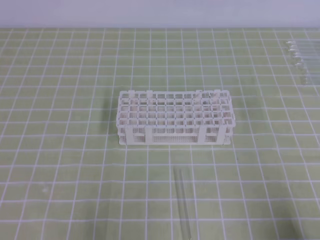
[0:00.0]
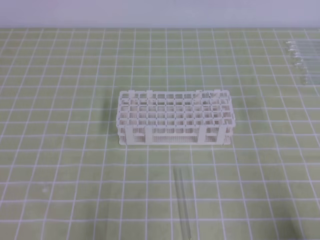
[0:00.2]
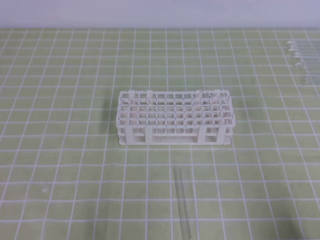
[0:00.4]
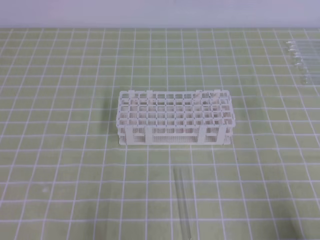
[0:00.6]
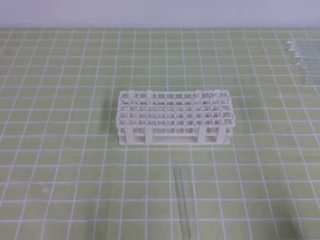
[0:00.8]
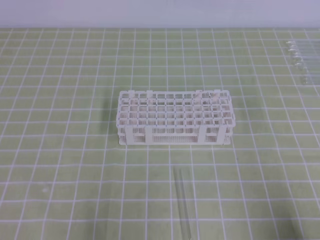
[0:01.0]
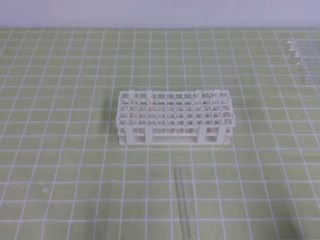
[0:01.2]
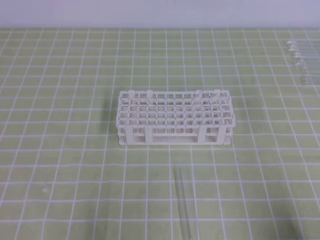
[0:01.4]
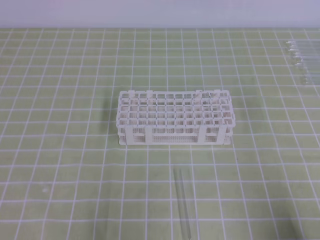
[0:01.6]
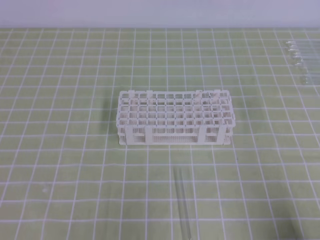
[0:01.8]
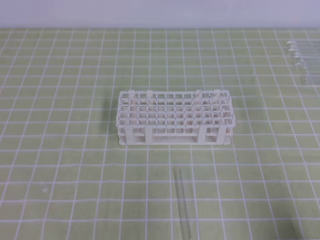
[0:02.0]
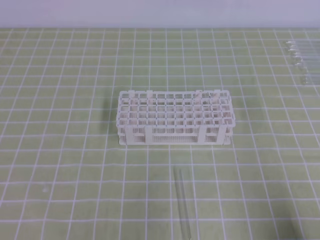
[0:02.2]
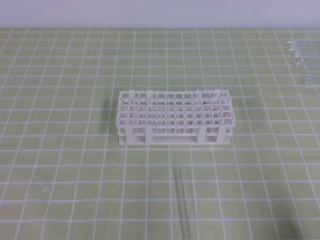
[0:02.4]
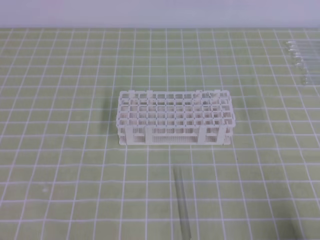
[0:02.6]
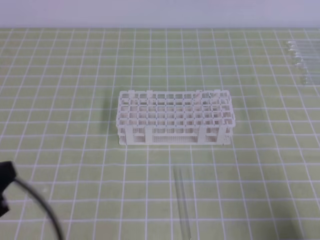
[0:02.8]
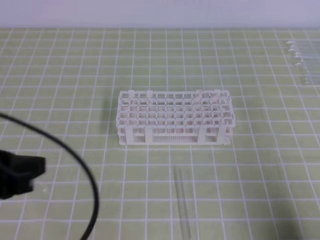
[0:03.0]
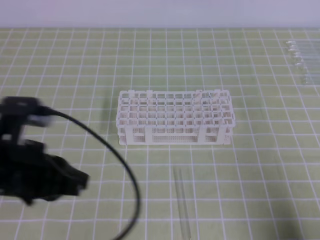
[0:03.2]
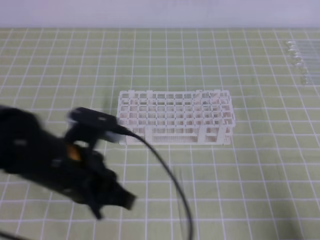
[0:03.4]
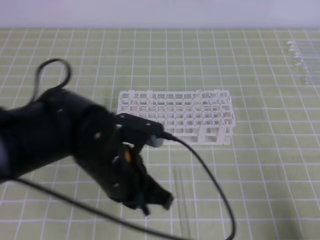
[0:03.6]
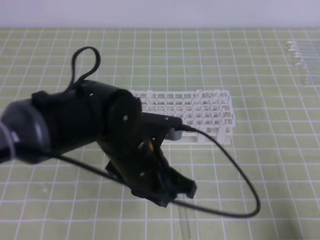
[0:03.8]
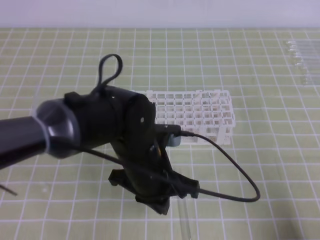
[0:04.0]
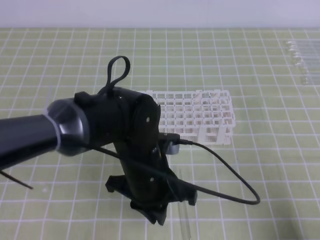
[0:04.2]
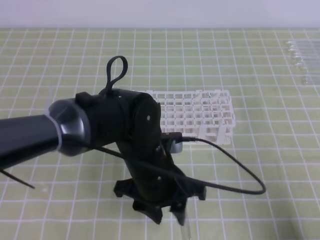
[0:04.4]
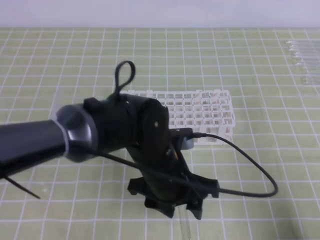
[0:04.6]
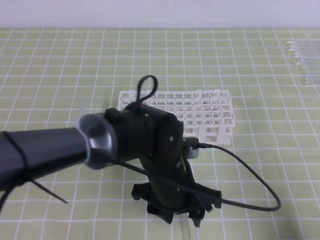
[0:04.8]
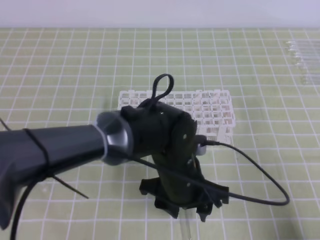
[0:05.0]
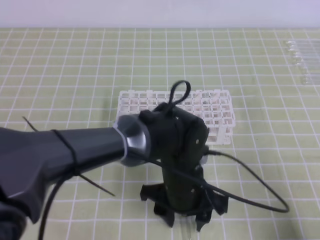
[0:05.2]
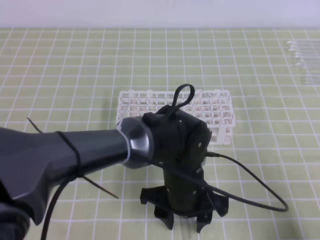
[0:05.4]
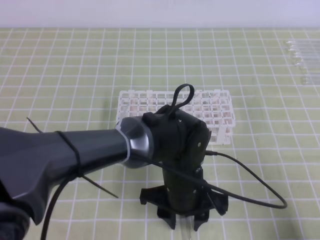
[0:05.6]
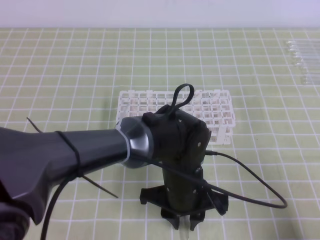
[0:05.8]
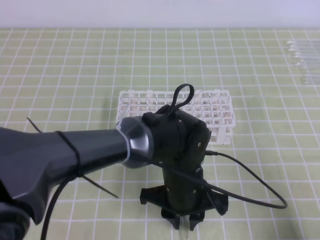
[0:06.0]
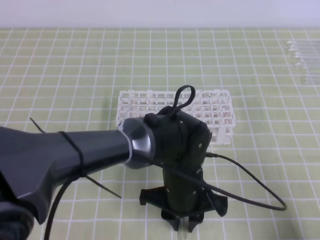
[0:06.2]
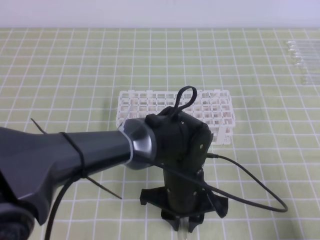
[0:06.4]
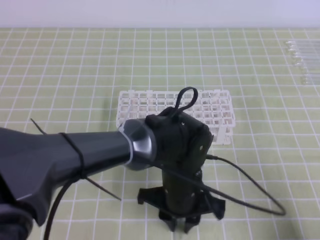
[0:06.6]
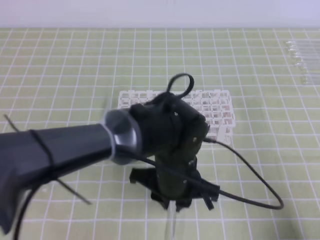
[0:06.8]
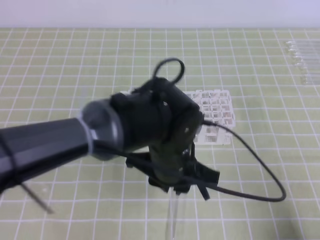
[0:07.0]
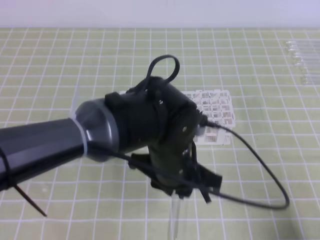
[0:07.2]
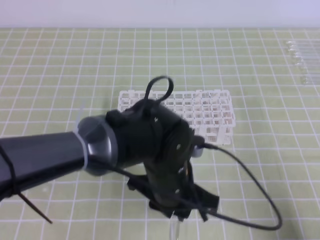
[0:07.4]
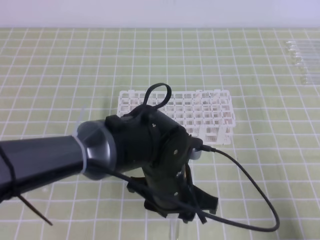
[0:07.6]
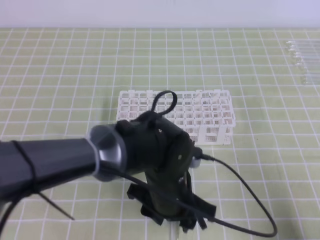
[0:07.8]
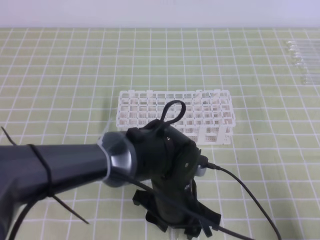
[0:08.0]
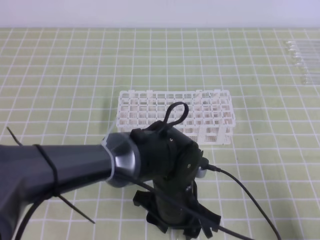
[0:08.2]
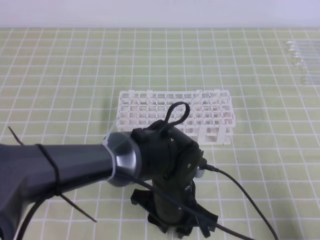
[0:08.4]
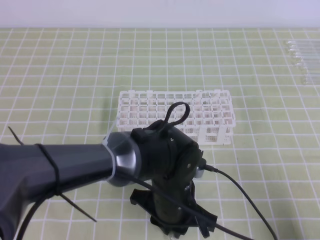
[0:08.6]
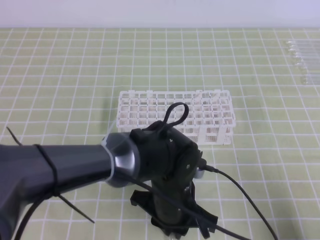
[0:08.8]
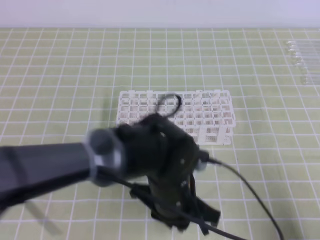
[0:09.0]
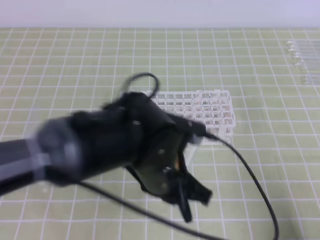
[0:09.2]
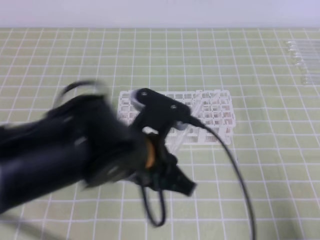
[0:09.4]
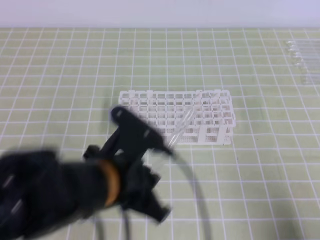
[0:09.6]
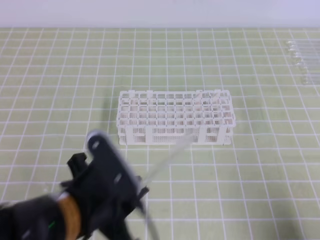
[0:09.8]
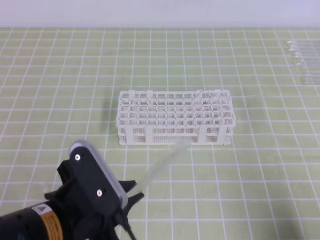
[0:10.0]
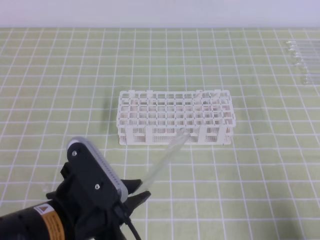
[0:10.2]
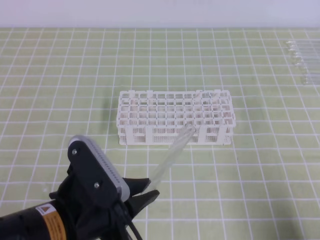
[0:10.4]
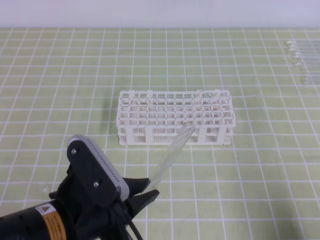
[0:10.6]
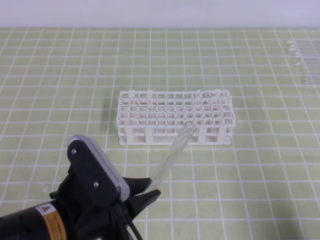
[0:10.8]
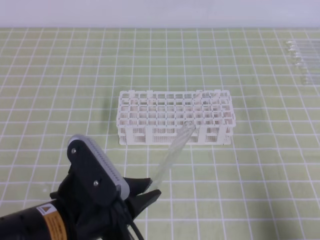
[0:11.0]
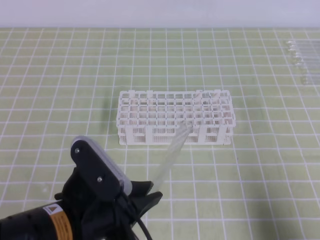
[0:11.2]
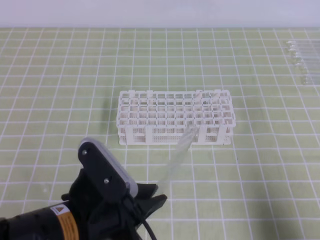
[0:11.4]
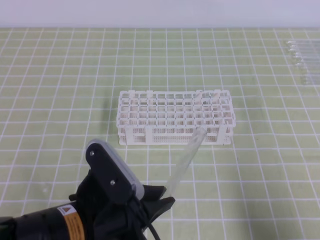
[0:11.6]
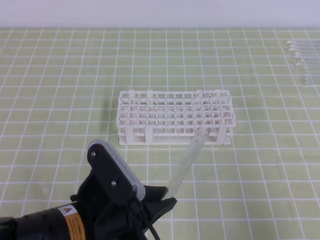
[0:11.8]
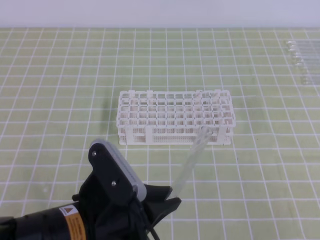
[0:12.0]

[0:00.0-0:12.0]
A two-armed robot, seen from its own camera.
0:01.6 to 0:03.0: The left gripper is displaced upward and forward by some 15 cm.
0:03.0 to 0:04.4: The left gripper goes approximately 25 cm to the right, forward and downward, and opens.
0:04.4 to 0:06.0: The left gripper moves to the right, roughly 5 cm, and opens and closes again.
0:06.0 to 0:07.6: The grippers move only a little.
0:07.6 to 0:09.0: The left gripper closes its fingers.
0:09.0 to 0:10.4: The left gripper moves to the left, backward and upward, some 15 cm.
0:10.4 to 0:12.0: The right gripper heads upward, covering approximately 5 cm.

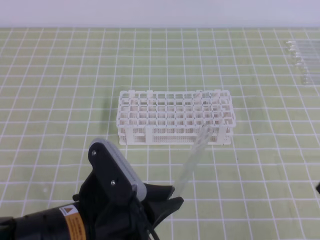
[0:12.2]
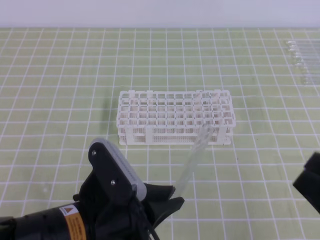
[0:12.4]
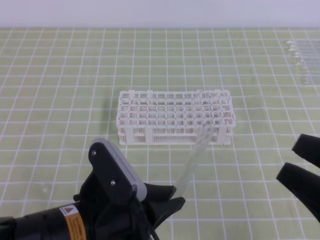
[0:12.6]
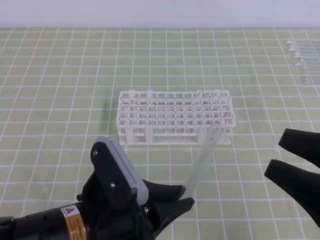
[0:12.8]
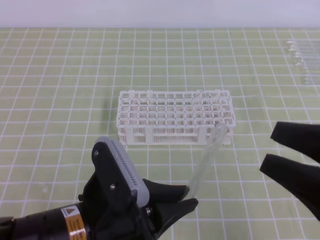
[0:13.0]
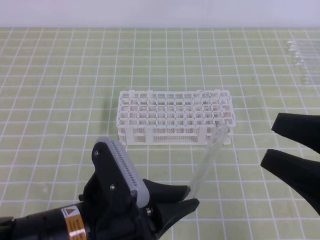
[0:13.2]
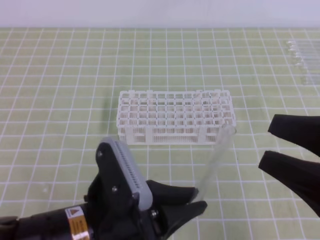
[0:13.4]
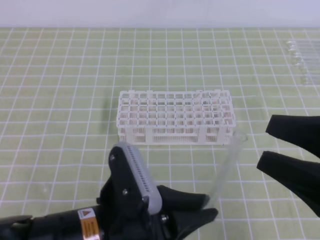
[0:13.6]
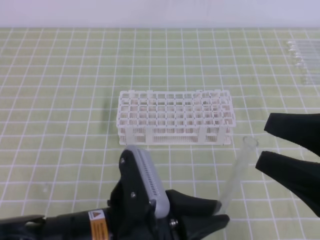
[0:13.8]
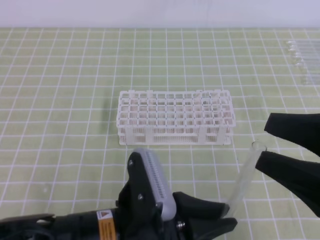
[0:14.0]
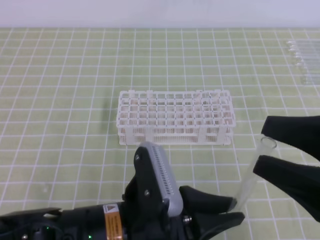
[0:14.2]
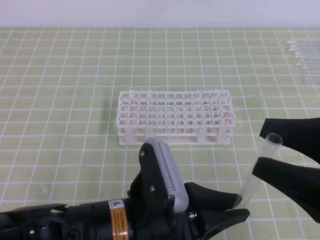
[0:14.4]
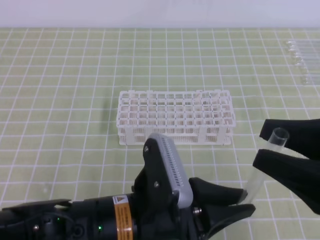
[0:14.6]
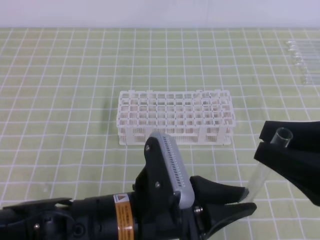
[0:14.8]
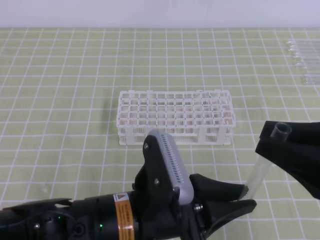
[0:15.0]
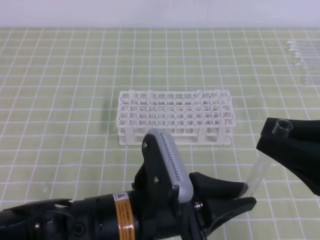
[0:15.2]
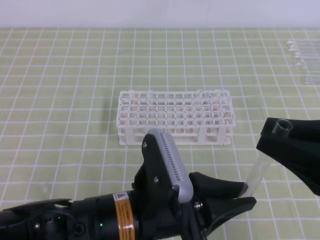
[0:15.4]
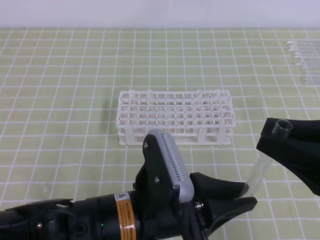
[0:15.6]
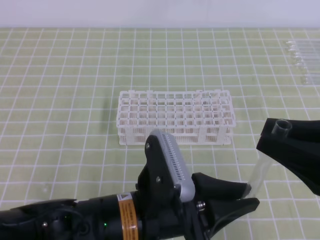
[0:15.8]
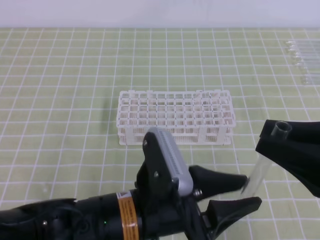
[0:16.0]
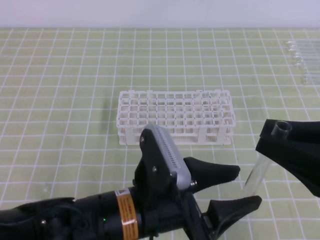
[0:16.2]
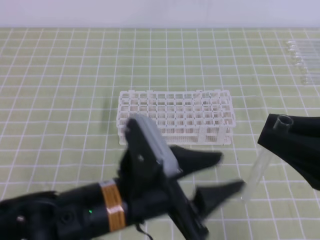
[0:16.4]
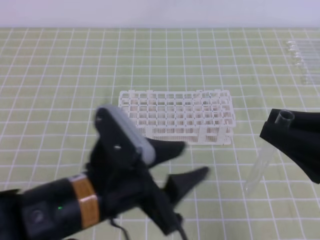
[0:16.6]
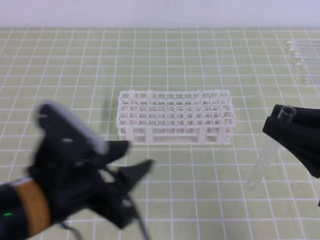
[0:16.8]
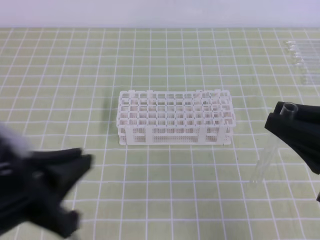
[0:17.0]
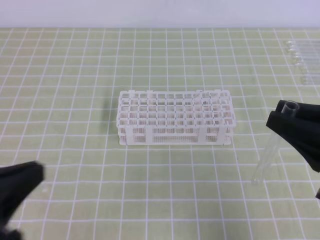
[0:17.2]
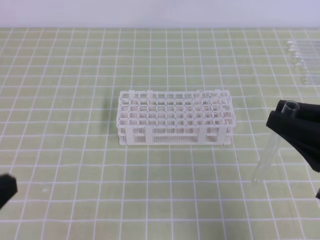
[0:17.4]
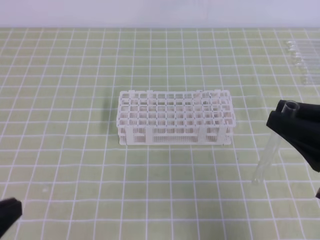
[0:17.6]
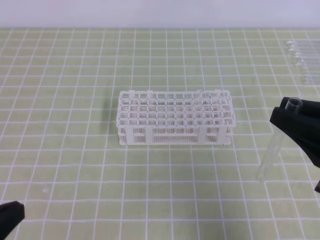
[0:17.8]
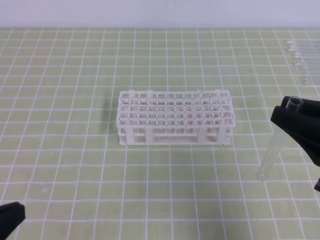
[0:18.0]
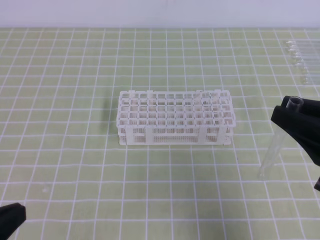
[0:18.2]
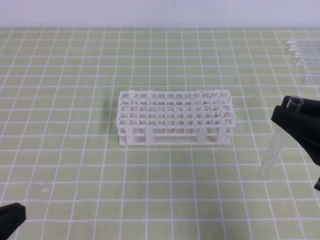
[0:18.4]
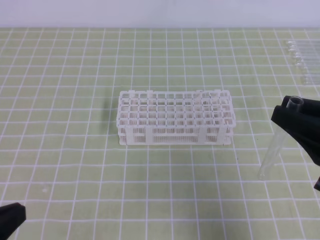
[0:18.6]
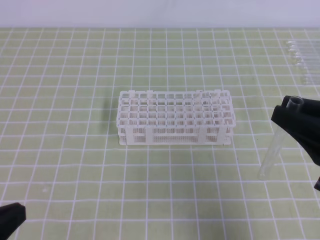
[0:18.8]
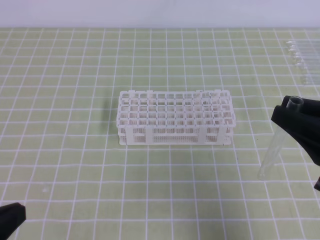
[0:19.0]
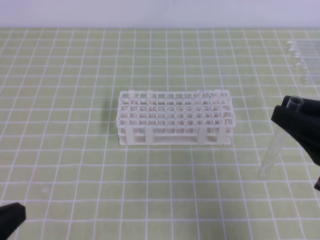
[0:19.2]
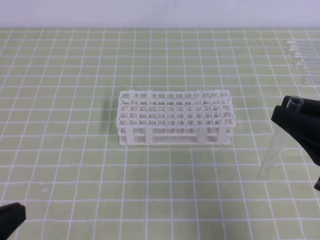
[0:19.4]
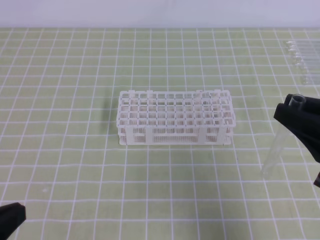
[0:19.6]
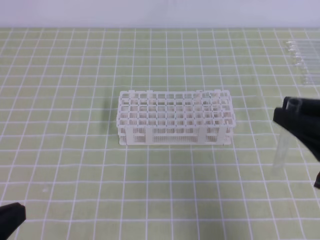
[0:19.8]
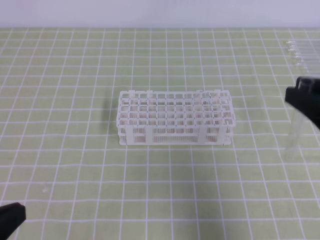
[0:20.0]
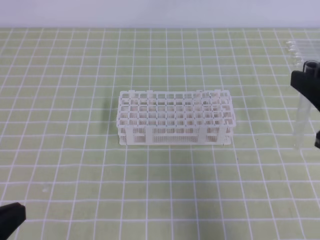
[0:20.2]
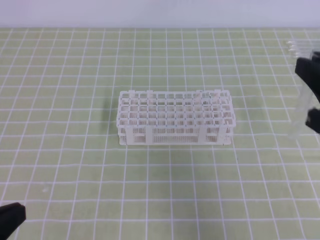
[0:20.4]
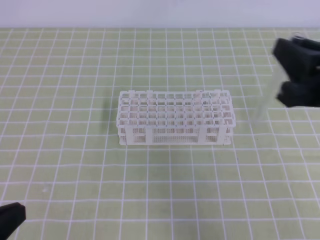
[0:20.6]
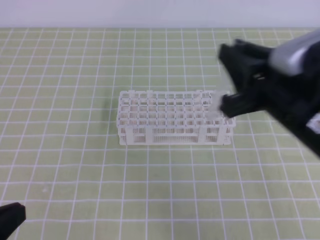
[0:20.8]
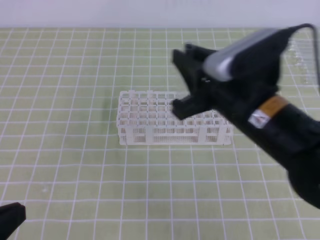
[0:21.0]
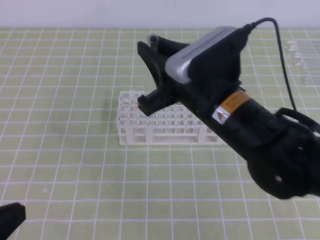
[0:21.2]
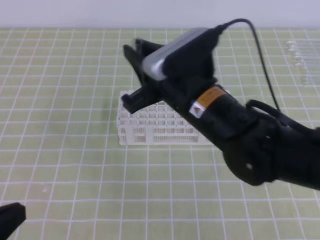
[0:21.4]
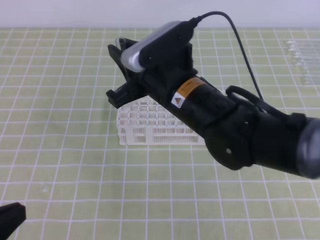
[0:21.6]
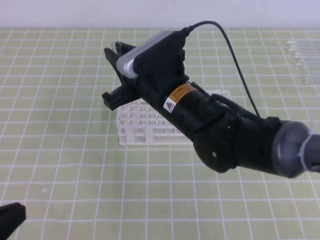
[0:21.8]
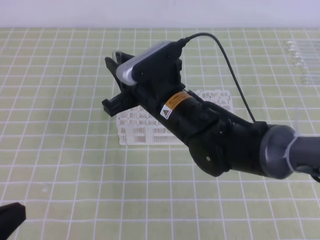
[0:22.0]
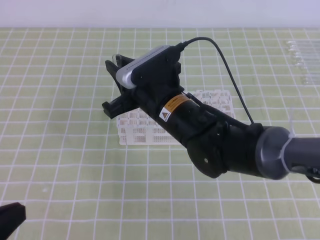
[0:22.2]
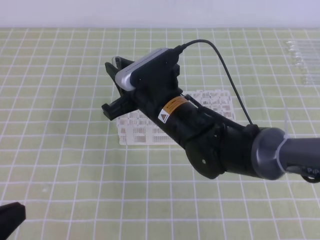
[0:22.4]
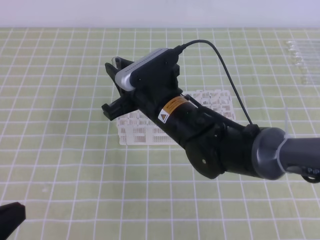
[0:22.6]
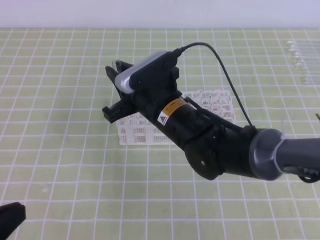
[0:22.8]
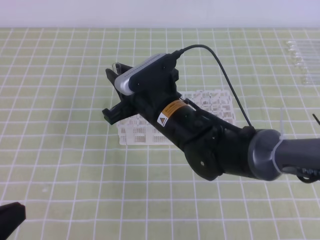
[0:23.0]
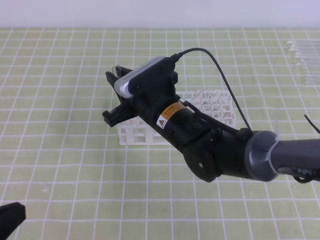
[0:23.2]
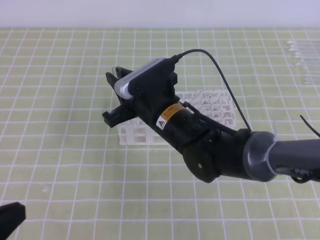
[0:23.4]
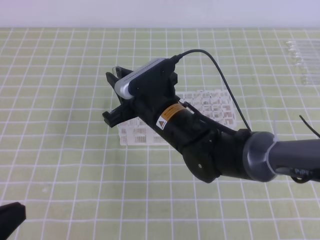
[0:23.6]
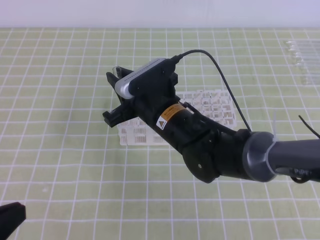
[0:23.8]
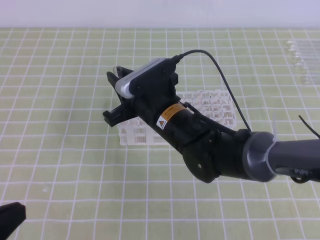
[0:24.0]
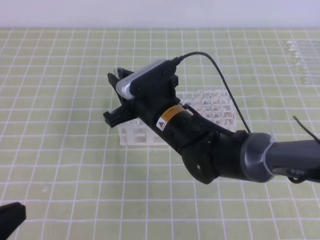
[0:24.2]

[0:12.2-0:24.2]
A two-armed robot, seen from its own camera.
0:12.2 to 0:13.8: The right gripper goes approximately 10 cm forward and upward, and opens.
0:13.8 to 0:15.2: The right gripper closes up.
0:15.2 to 0:16.6: The left gripper opens up.
0:16.6 to 0:18.2: The left gripper is displaced to the left and backward by about 20 cm, and closes its fingers.
0:18.2 to 0:19.8: Both grippers stay about where they are.
0:19.8 to 0:21.2: The right gripper goes approximately 15 cm to the left and forward.
0:21.2 to 0:22.6: The right gripper moves to the left, forward and downward, approximately 15 cm.
0:22.6 to 0:24.2: The grippers make only small movements.
